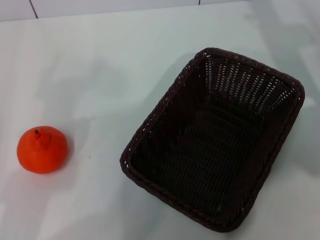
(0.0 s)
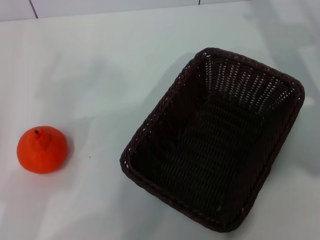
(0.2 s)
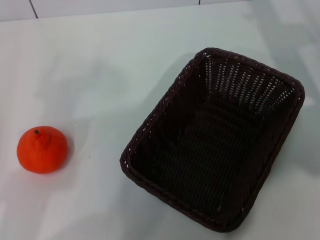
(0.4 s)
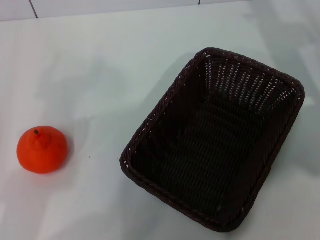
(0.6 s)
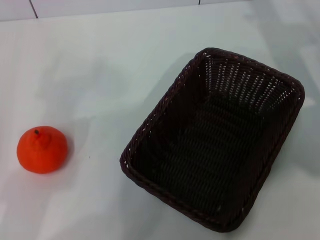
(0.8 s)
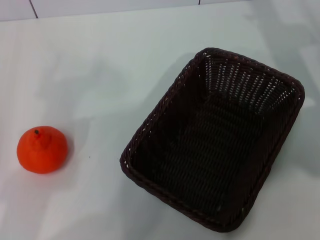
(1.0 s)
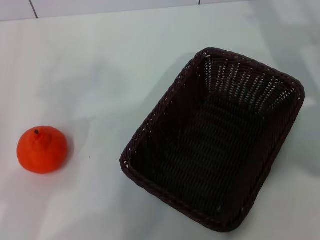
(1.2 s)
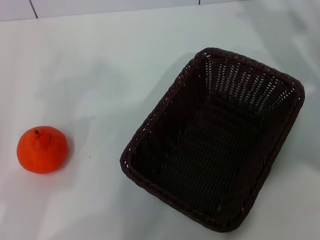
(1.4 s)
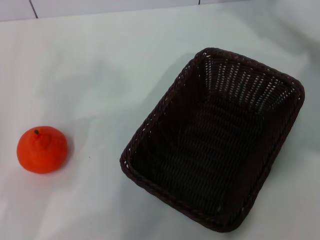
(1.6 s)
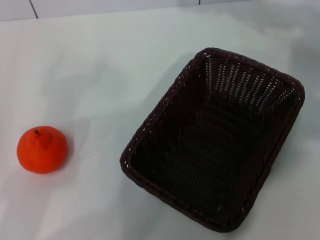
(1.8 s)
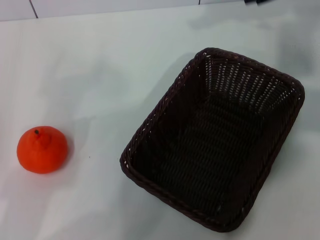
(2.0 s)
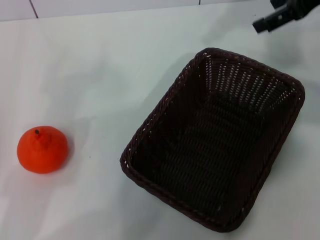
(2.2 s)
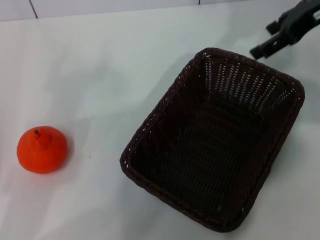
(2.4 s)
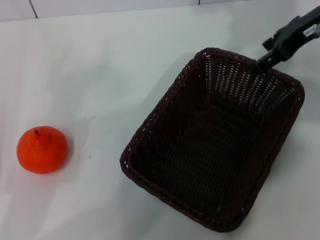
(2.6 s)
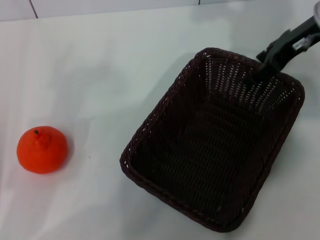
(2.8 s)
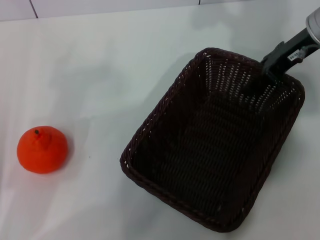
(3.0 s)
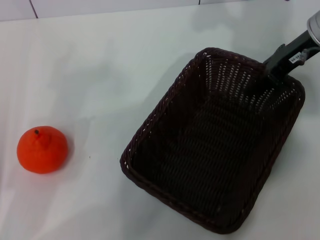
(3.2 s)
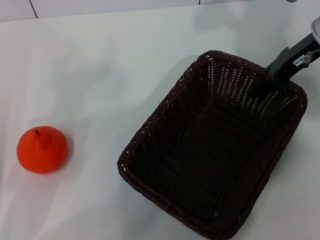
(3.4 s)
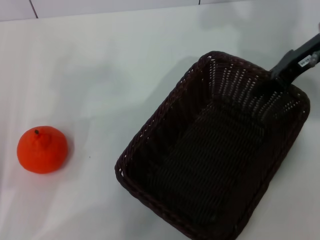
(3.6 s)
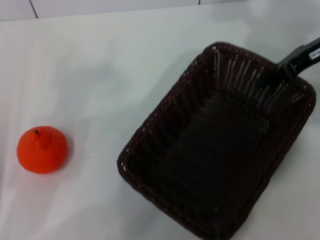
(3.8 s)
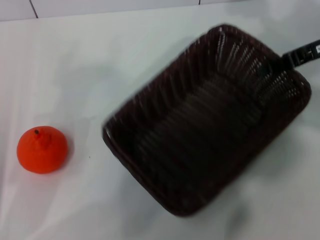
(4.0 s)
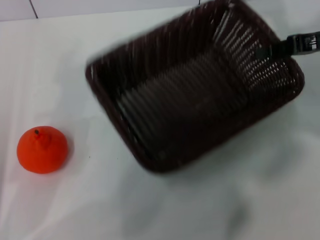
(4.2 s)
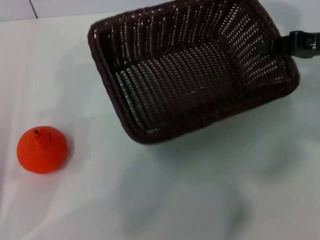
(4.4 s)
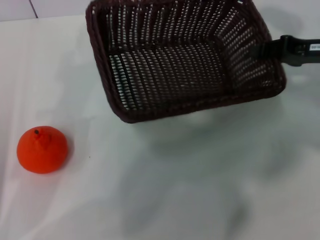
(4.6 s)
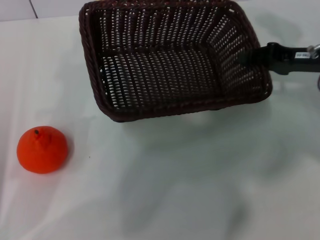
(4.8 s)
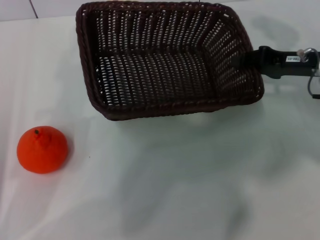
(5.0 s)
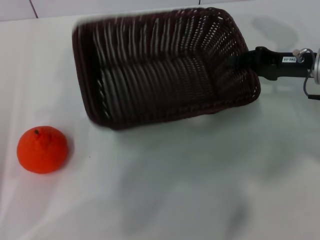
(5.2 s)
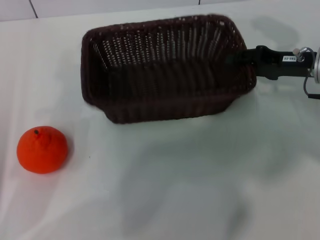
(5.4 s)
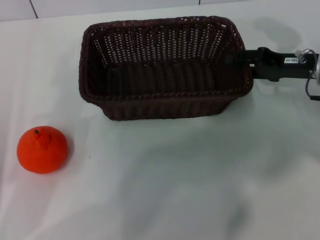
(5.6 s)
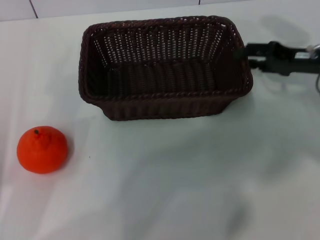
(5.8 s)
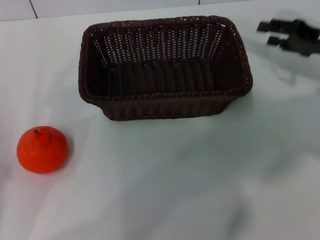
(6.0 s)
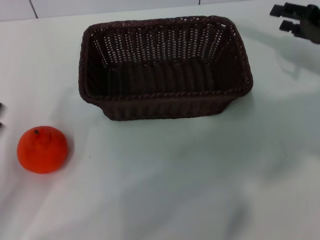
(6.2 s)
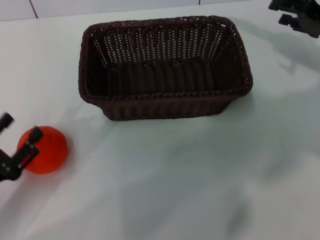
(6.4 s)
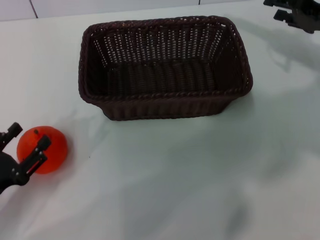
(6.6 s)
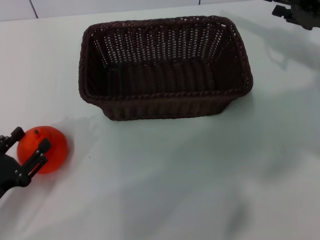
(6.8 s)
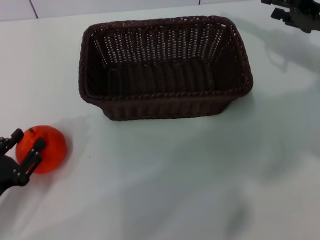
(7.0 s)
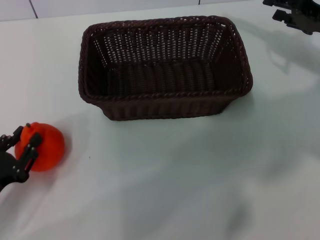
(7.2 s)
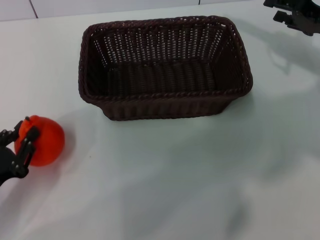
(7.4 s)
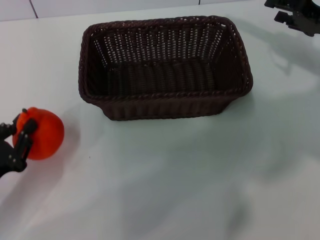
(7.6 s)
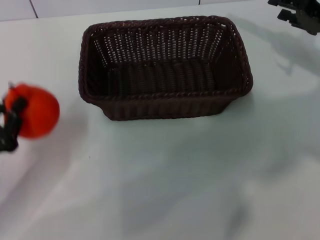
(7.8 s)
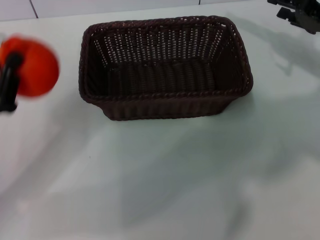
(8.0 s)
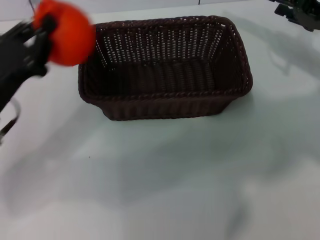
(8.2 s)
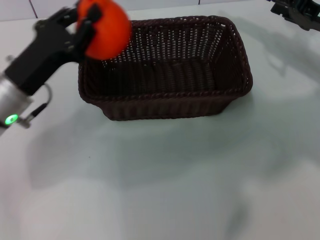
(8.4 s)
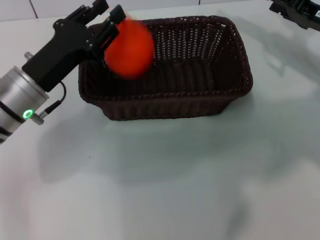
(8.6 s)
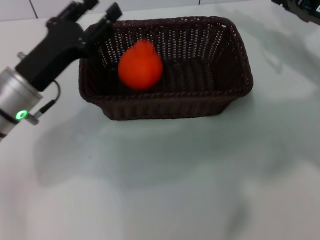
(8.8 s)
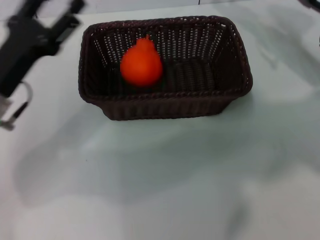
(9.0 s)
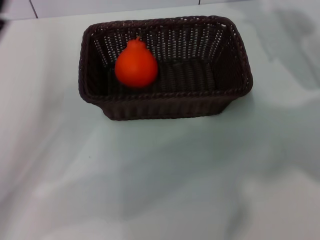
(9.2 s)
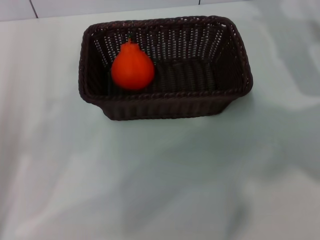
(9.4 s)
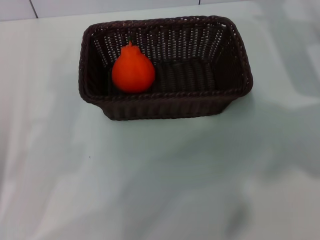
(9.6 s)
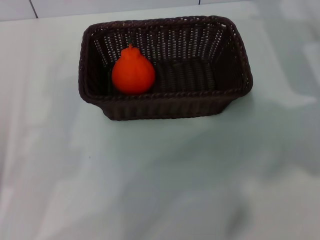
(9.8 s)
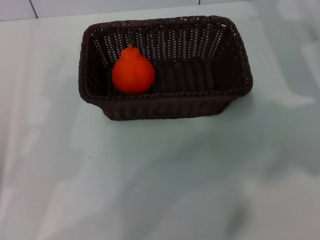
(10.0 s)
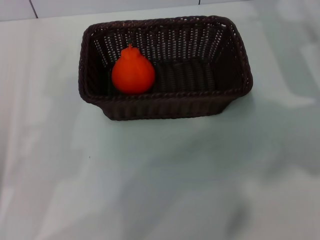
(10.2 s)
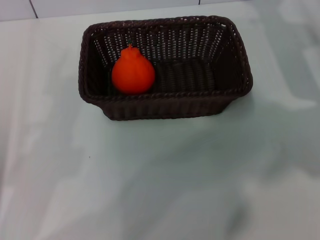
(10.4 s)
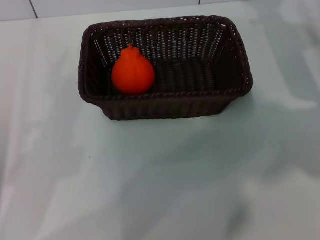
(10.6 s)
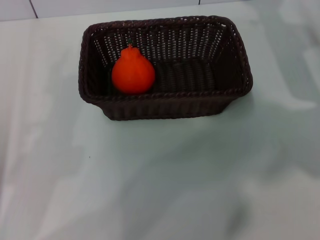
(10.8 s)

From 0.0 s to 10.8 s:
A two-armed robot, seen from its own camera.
Task of the whole recording: the right gripper pick up the black basket and place it horizontally in the middle of the table, the left gripper pick up the orange and place it into the black basket.
Step, from 0.0 s to 4.0 s: Pick up the dark basket with the right gripper.
Step, from 4.4 s to 6.0 s: Place the dark basket in the center of view with the right gripper.
Step, from 6.4 s to 7.4 s: Pick up the orange with the left gripper.
Step, from 7.6 s to 8.6 s: Place the orange into the dark basket with the left gripper.
From 0.0 s to 1.6 s: The right gripper travels upward by roughly 5 cm.
From 1.6 s to 3.0 s: The right gripper goes upward and returns, roughly 10 cm each way.
From 3.0 s to 4.6 s: The right gripper travels to the right and downward by about 10 cm, and closes its fingers.
From 4.6 s to 6.2 s: The right gripper opens up.
From 6.2 s to 7.8 s: The left gripper closes its fingers.
From 7.8 s to 9.2 s: The left gripper goes about 5 cm forward, and opens its fingers.
From 9.2 s to 10.8 s: The left gripper travels backward by some 10 cm.
